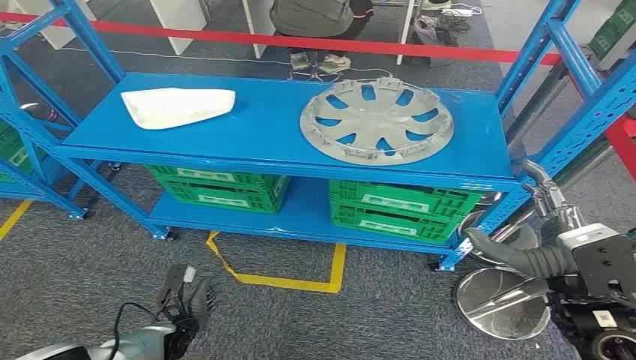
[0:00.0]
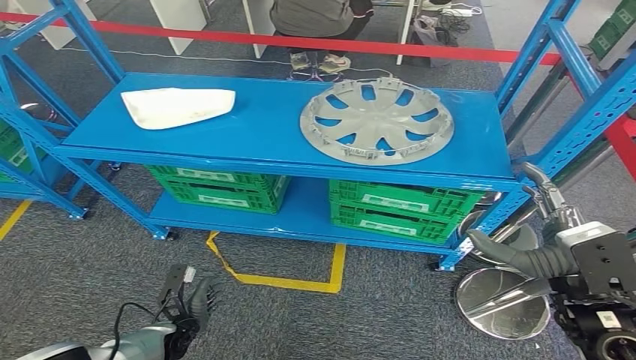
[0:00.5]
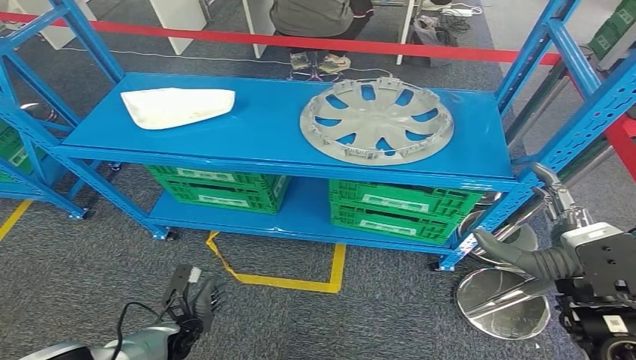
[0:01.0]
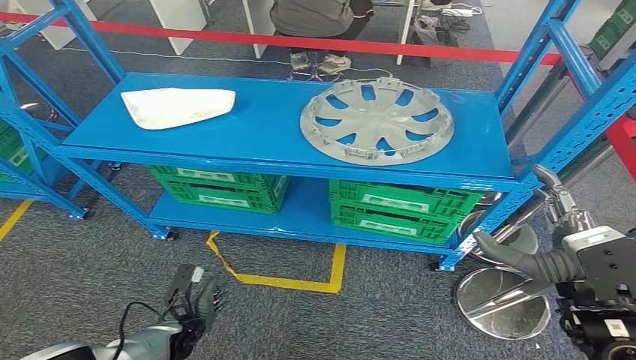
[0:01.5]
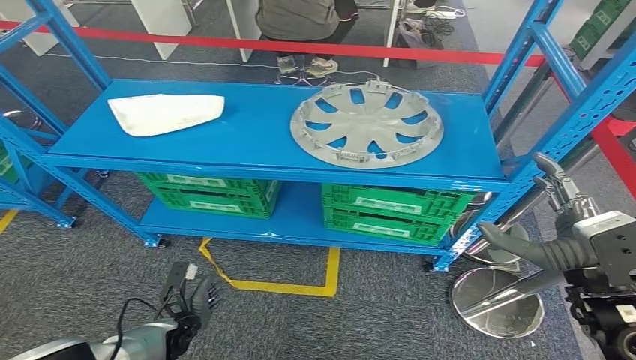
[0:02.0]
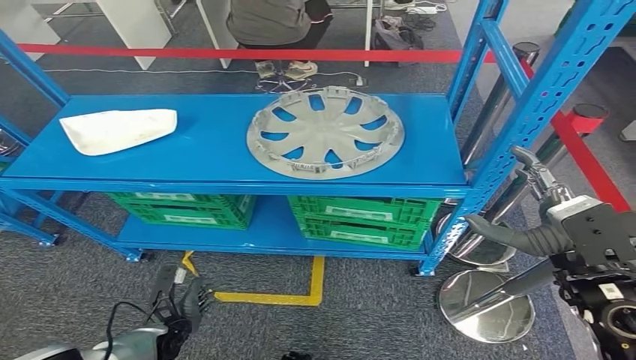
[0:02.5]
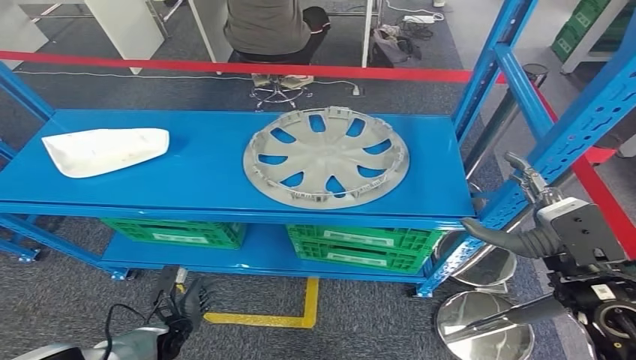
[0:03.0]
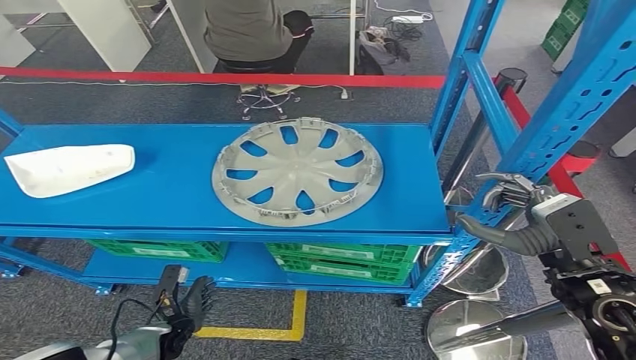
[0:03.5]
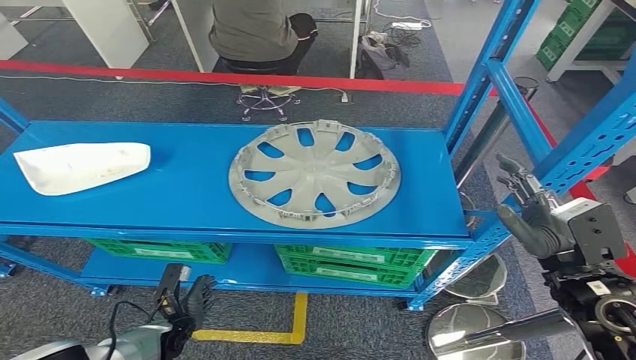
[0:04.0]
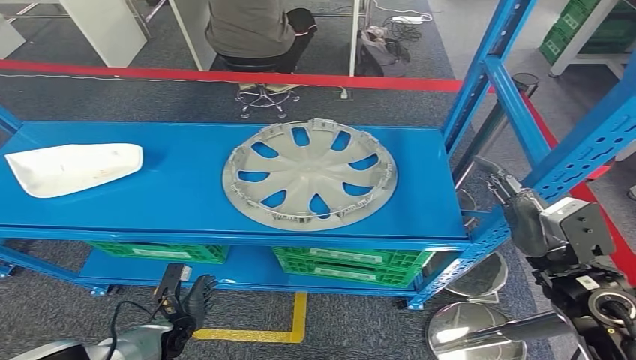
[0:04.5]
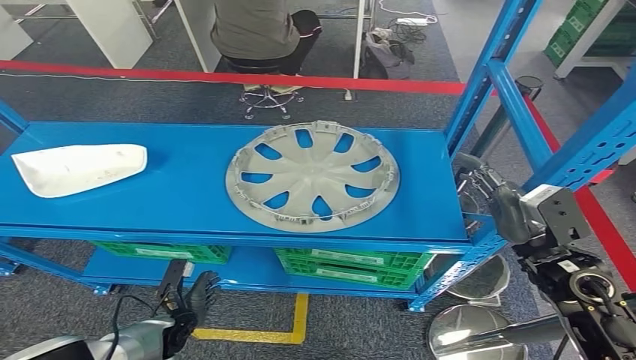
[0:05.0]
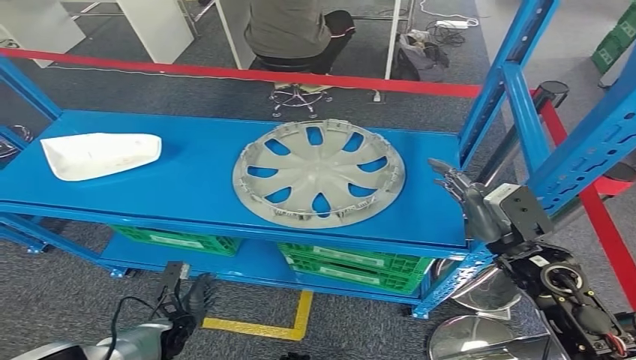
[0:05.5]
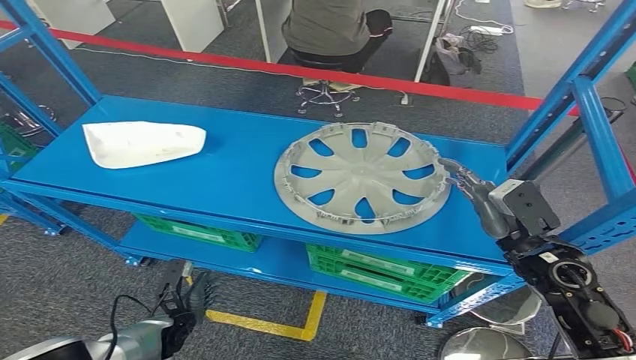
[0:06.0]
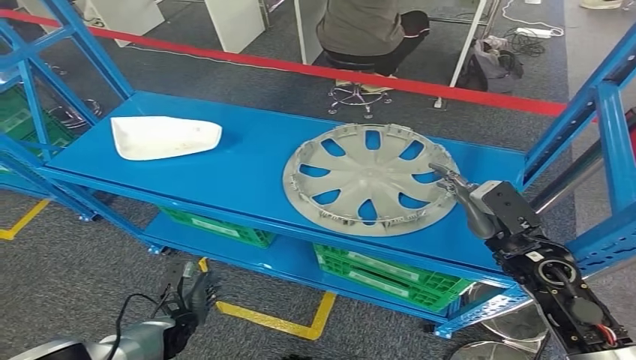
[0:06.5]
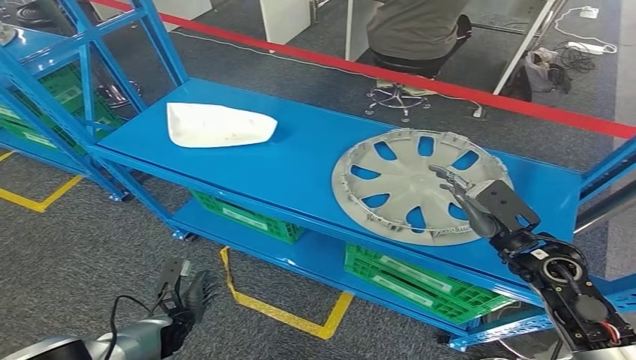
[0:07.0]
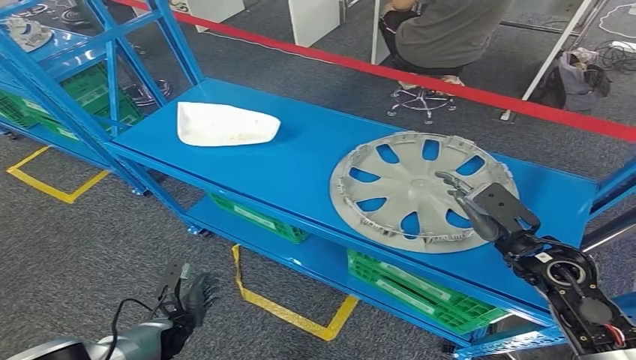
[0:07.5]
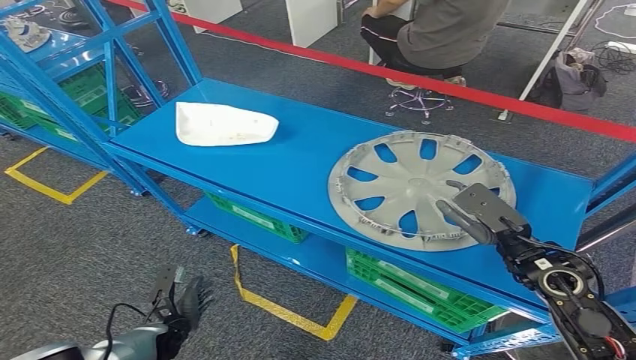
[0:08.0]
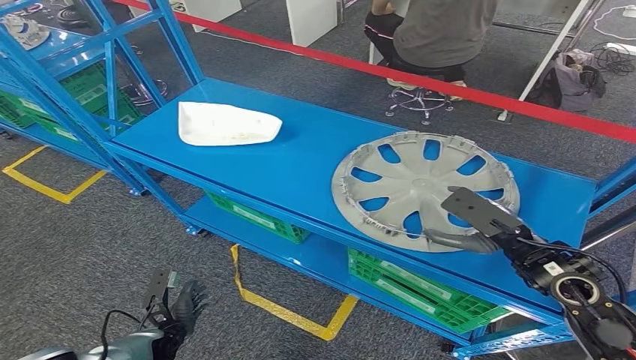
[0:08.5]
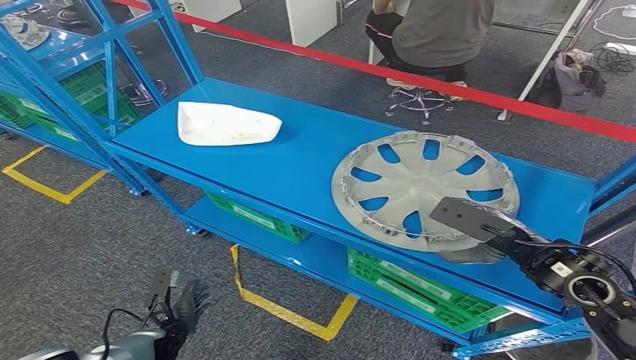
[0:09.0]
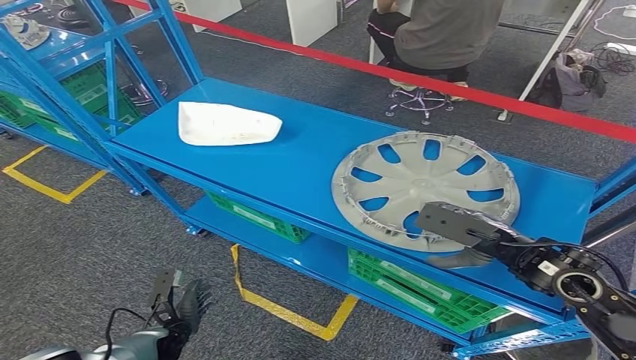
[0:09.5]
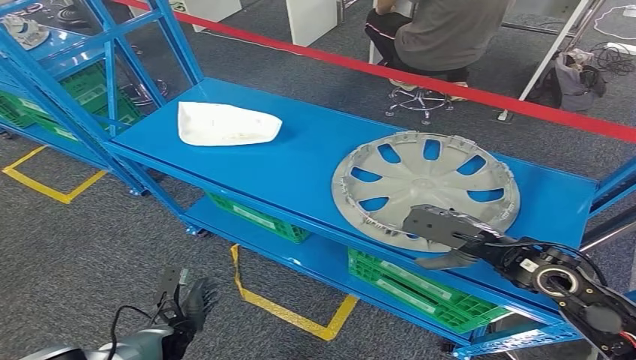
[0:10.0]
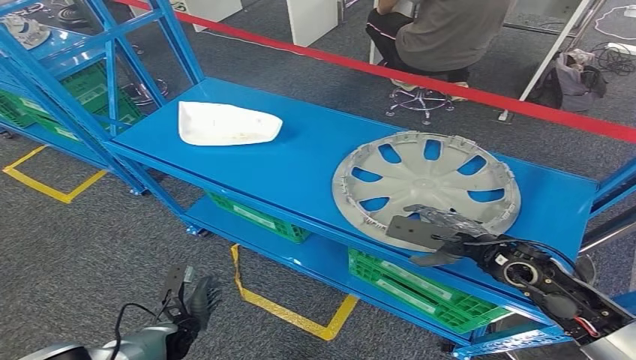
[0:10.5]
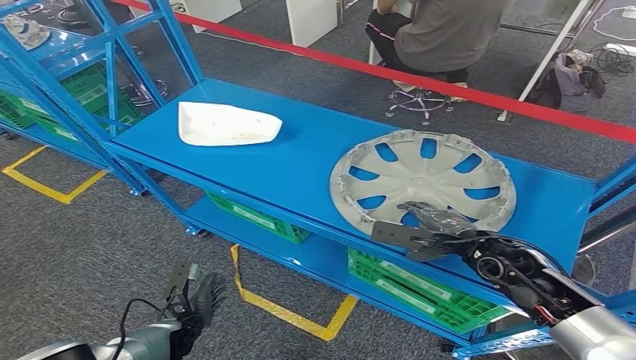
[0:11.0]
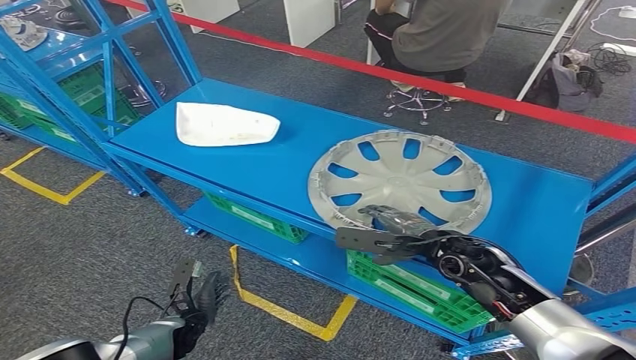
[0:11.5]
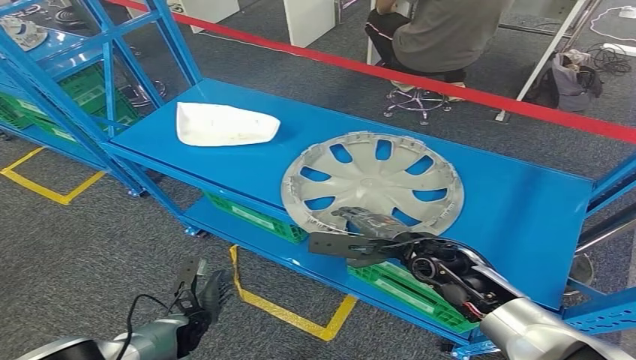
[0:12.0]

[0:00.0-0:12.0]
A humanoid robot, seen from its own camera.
0:10.0 to 0:12.0: The right hand moves to the left, roughly 10 cm.

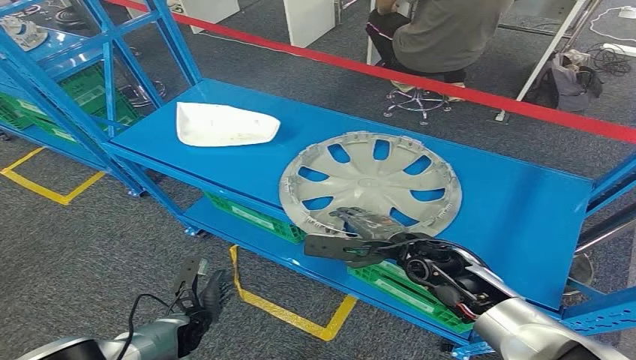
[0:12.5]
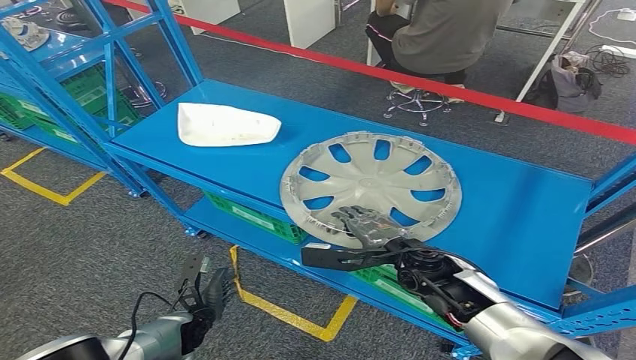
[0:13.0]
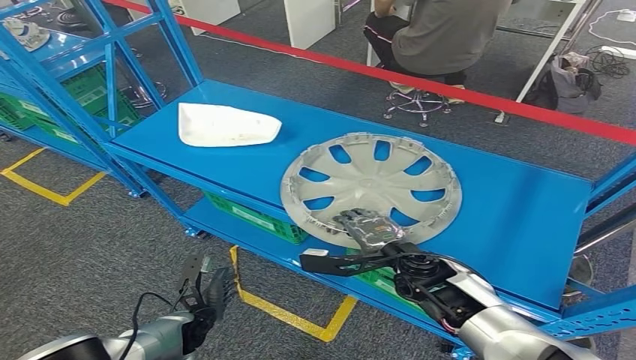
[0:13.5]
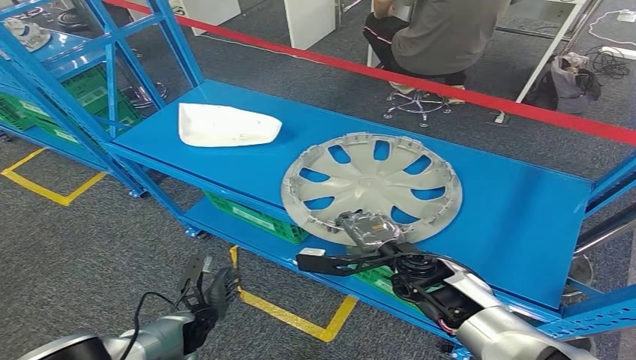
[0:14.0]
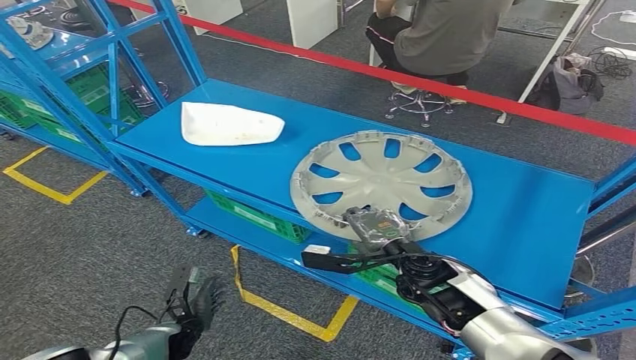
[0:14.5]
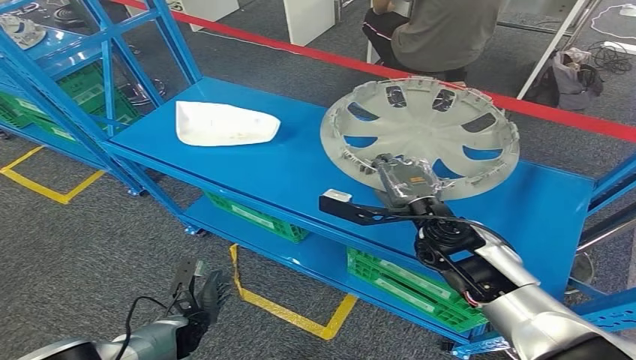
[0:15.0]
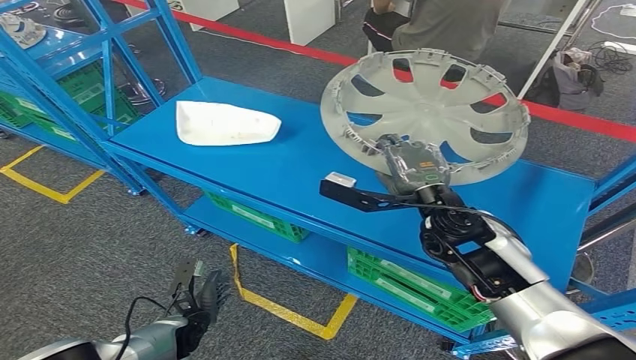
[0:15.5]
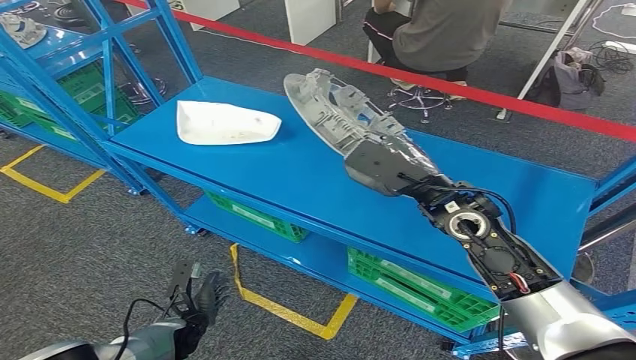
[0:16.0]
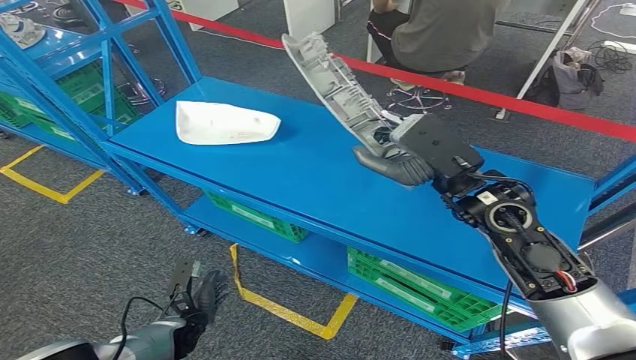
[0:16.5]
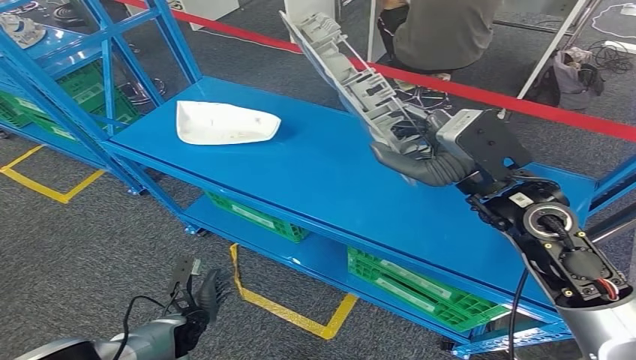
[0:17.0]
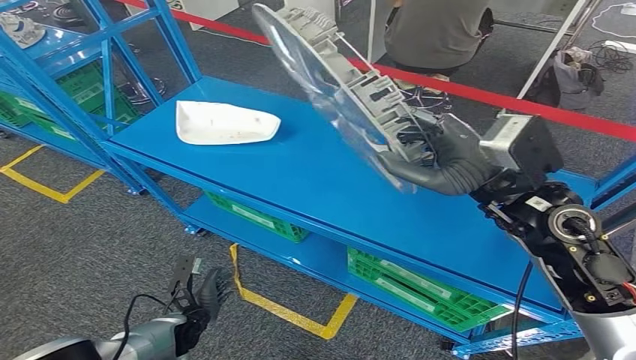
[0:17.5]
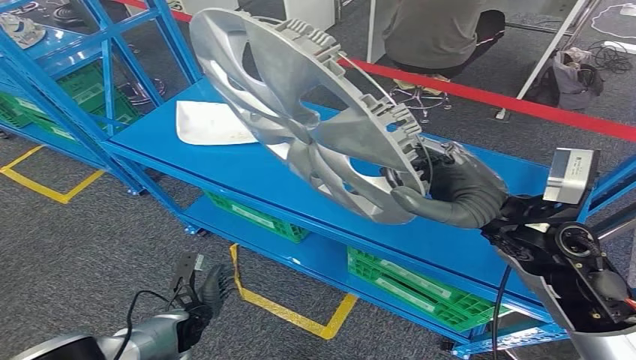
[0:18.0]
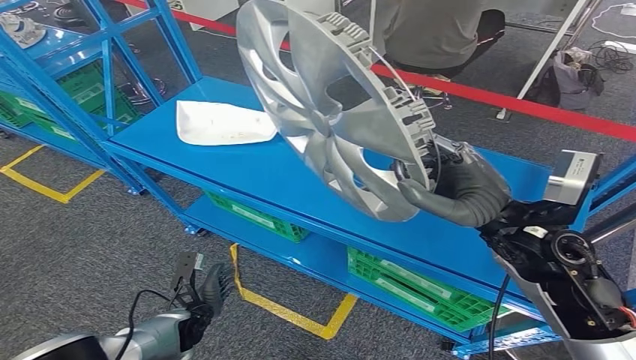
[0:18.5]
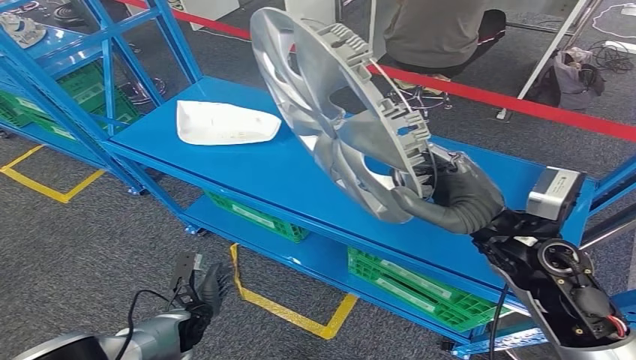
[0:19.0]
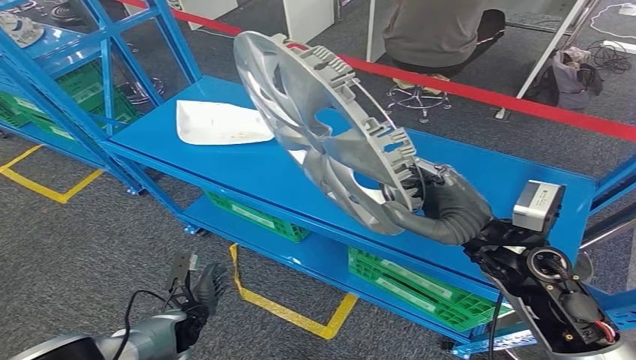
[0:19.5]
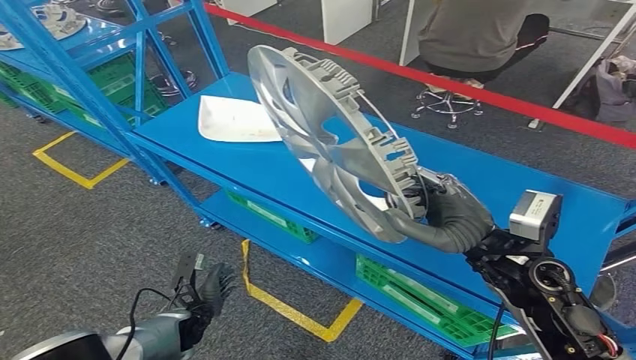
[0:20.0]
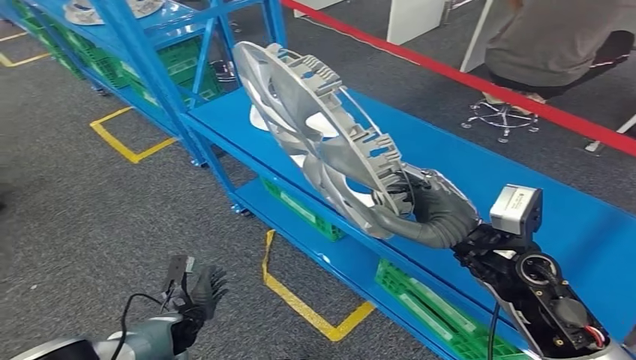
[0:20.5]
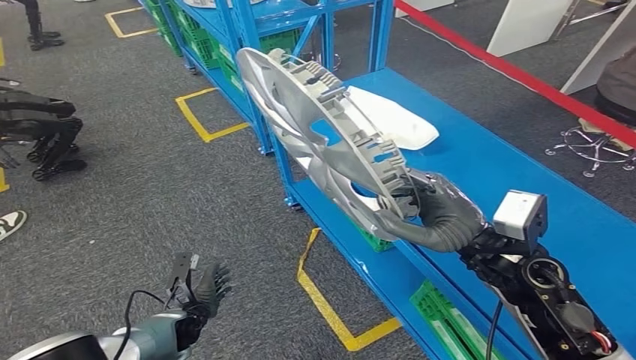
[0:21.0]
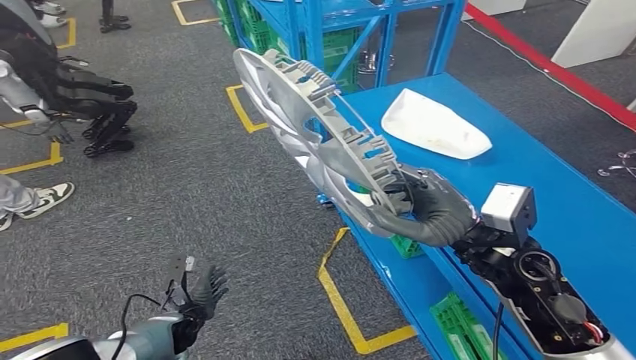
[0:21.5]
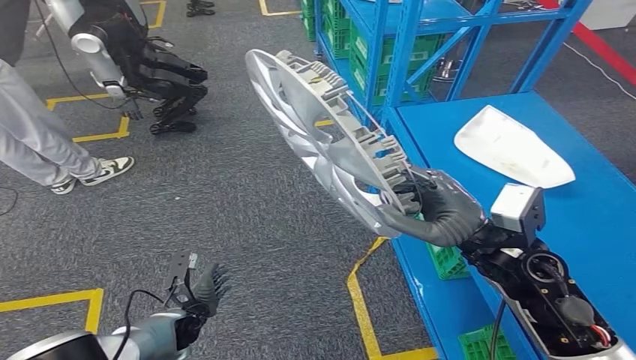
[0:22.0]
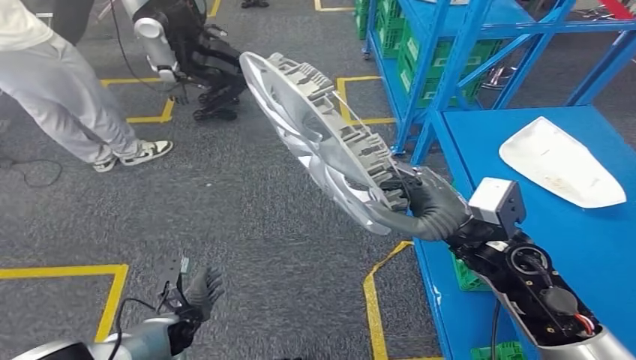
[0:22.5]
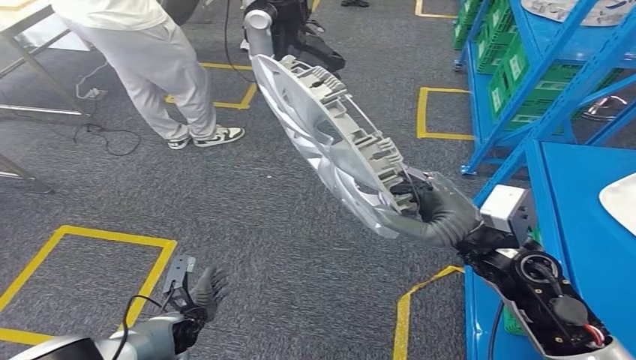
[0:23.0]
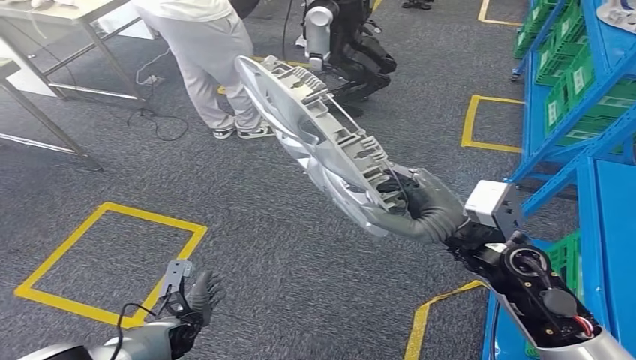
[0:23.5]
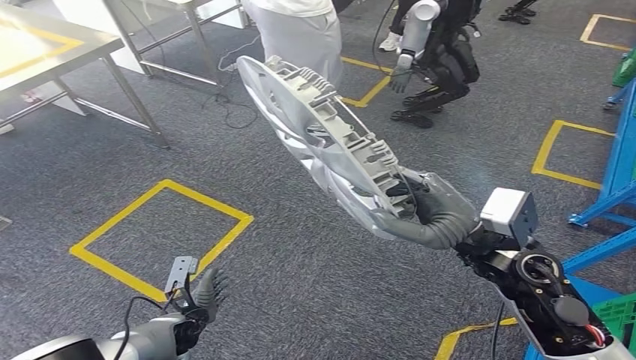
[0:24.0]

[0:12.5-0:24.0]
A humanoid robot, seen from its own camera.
Step, 0:12.5 to 0:17.0: Take small components from the rack.
